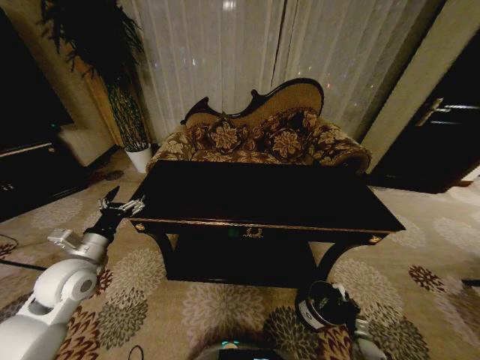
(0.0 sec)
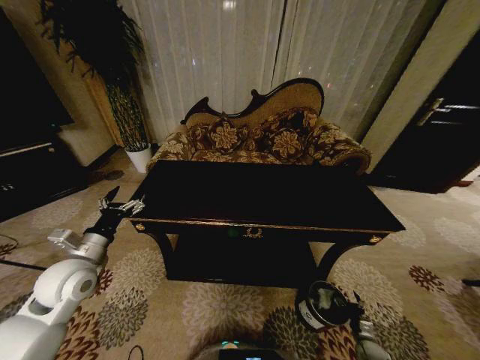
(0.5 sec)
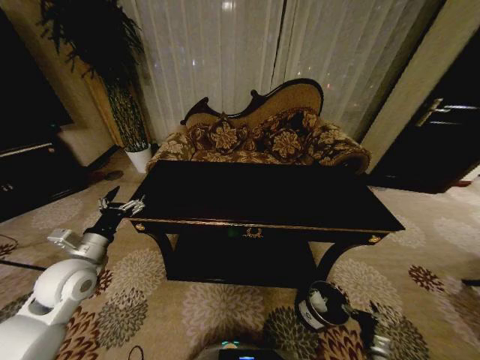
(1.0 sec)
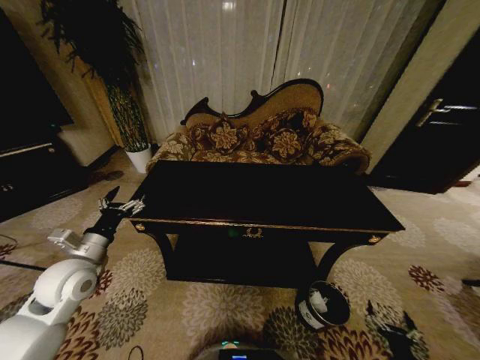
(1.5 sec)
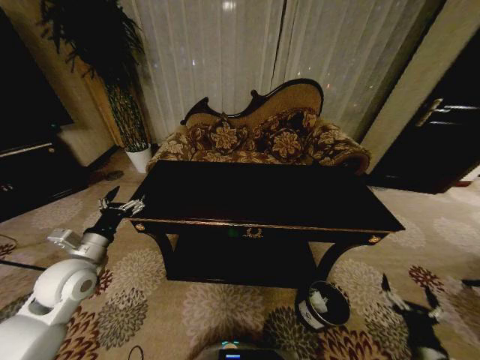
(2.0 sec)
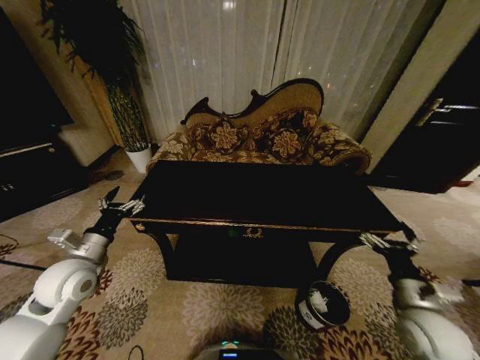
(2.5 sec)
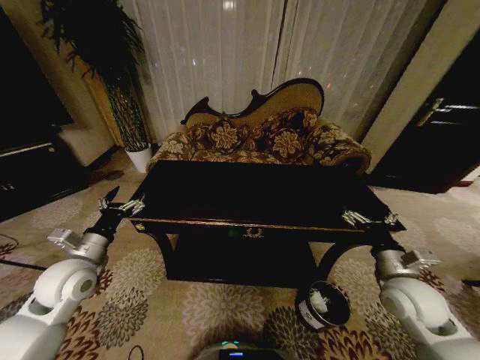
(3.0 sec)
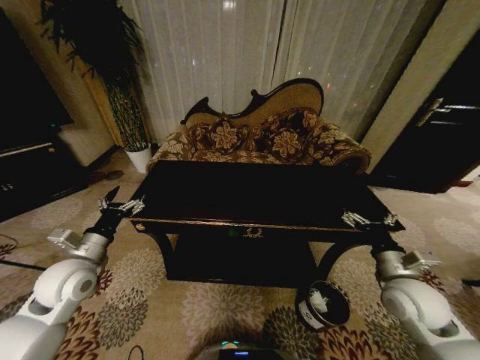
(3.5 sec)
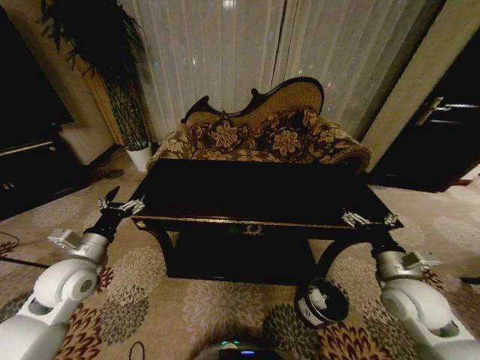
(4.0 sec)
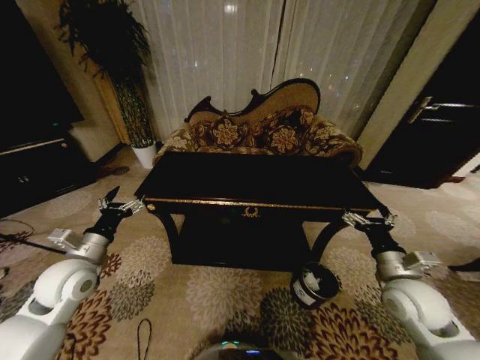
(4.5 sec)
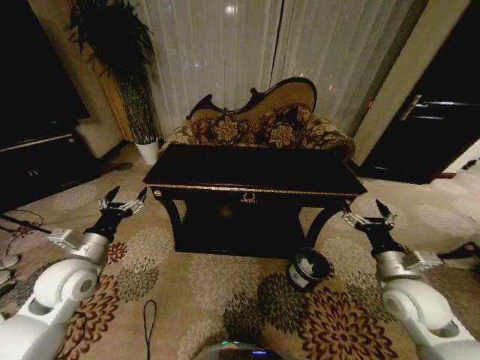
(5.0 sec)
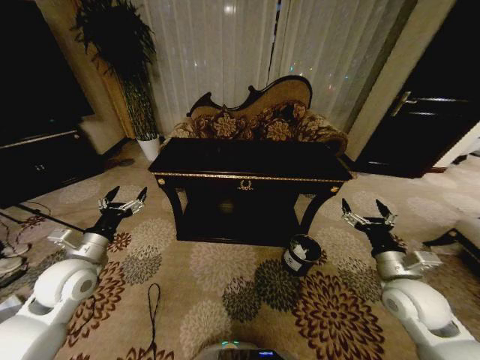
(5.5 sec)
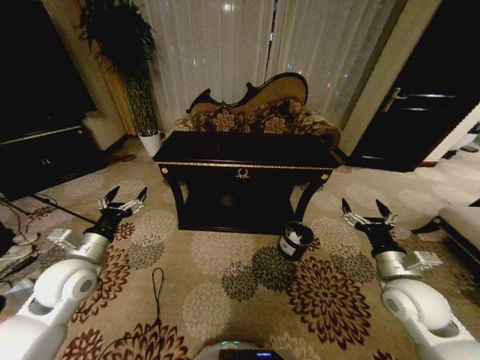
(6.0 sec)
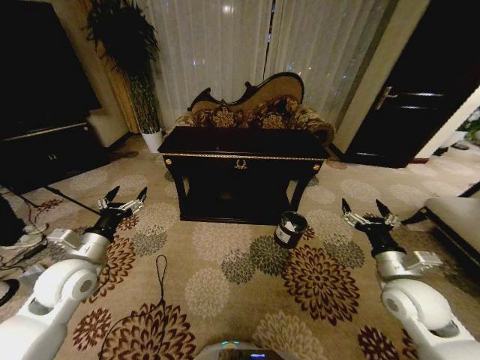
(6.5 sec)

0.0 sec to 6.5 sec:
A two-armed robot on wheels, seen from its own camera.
Task of the whole recording: Move to the front of the table and place the trash on the table into the trash bin.
0.0 sec to 2.0 sec: The right gripper moves upward and backward, approximately 25 cm, and opens its fingers.
2.0 sec to 4.5 sec: The right gripper travels upward and forward by about 25 cm.
